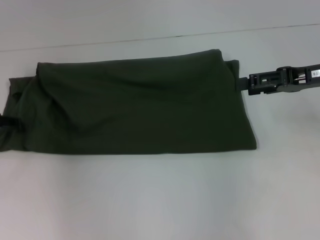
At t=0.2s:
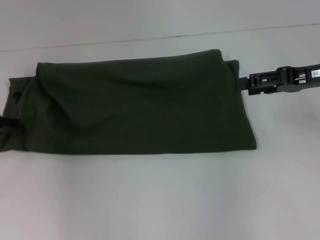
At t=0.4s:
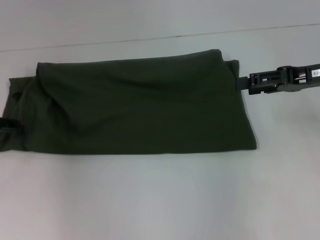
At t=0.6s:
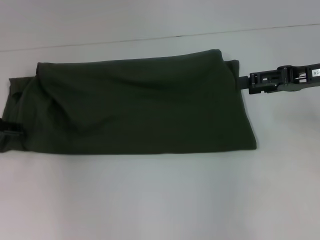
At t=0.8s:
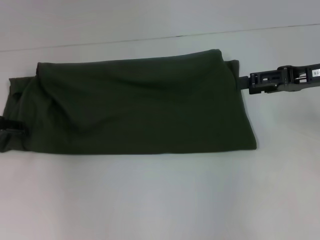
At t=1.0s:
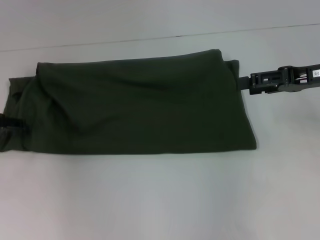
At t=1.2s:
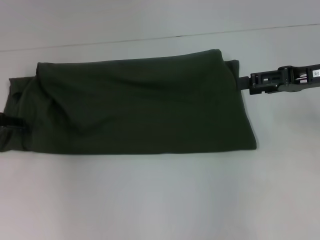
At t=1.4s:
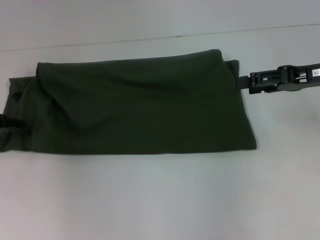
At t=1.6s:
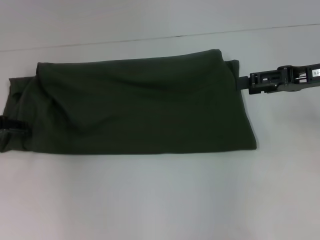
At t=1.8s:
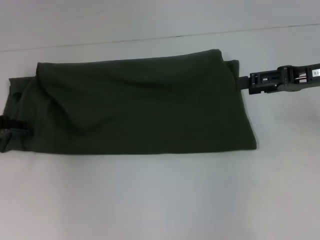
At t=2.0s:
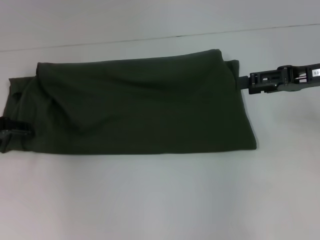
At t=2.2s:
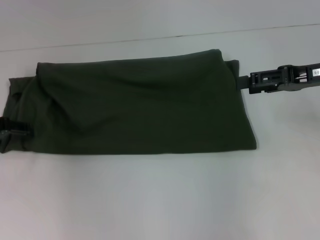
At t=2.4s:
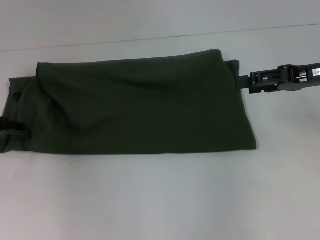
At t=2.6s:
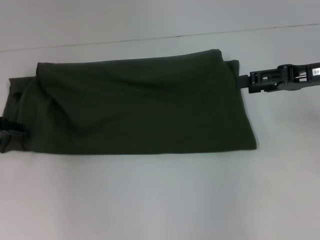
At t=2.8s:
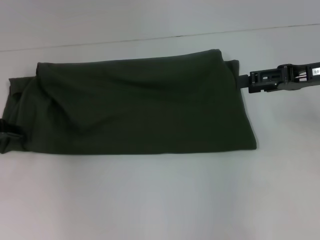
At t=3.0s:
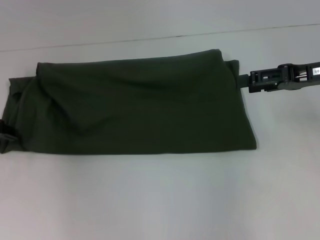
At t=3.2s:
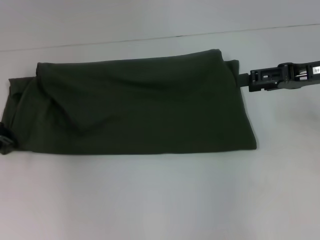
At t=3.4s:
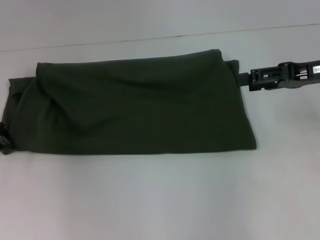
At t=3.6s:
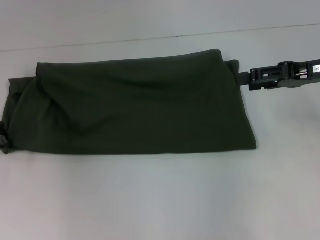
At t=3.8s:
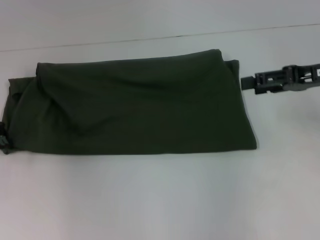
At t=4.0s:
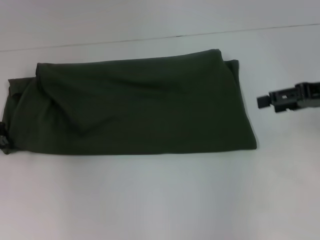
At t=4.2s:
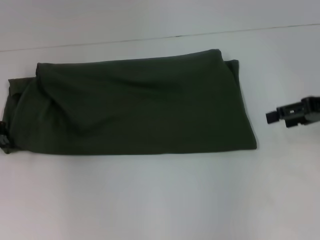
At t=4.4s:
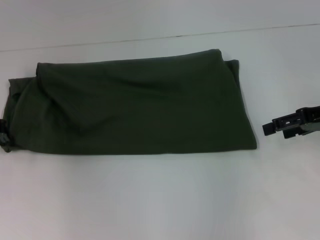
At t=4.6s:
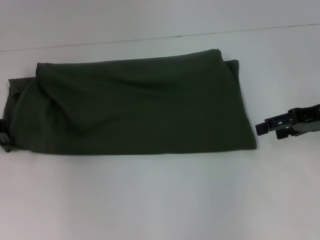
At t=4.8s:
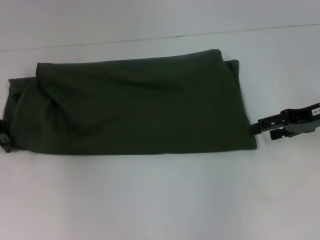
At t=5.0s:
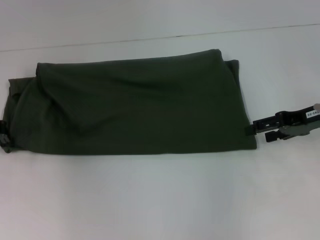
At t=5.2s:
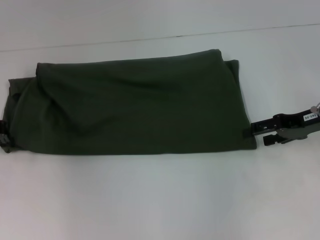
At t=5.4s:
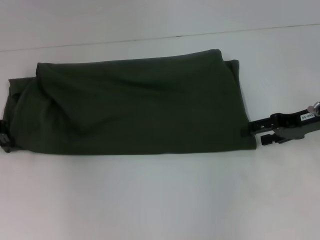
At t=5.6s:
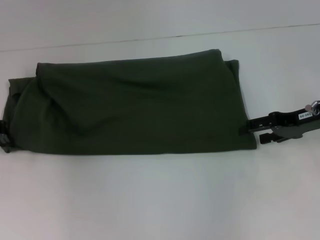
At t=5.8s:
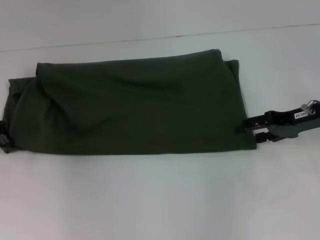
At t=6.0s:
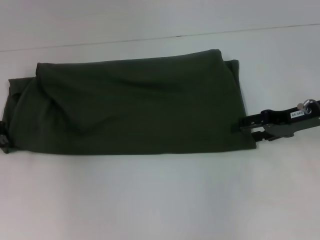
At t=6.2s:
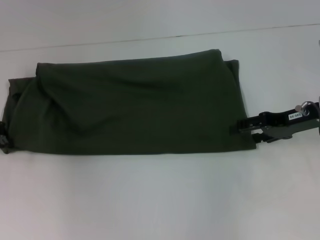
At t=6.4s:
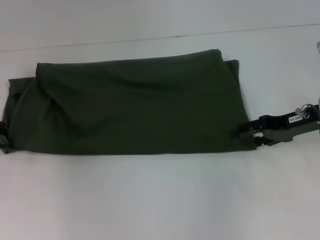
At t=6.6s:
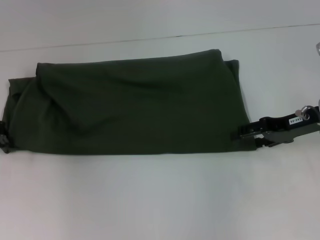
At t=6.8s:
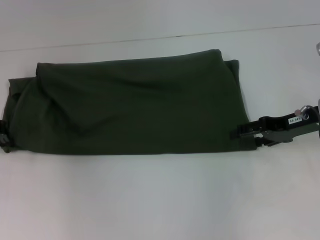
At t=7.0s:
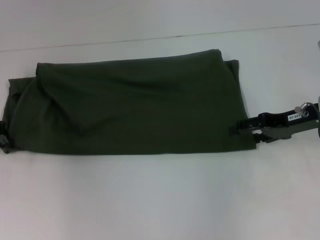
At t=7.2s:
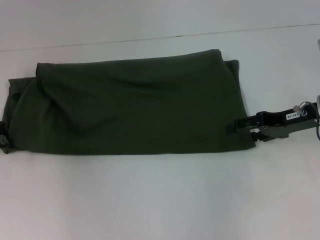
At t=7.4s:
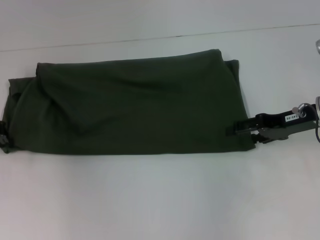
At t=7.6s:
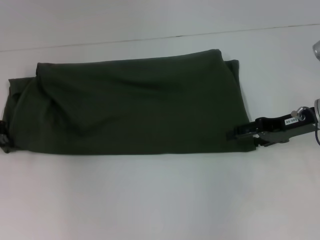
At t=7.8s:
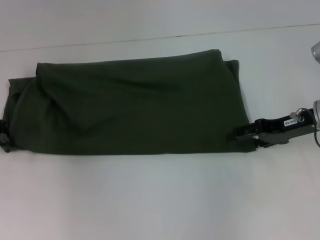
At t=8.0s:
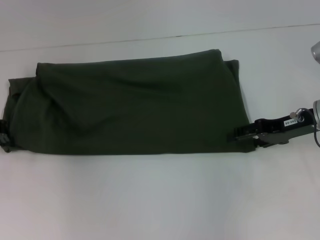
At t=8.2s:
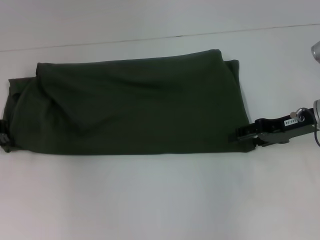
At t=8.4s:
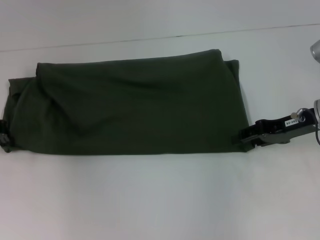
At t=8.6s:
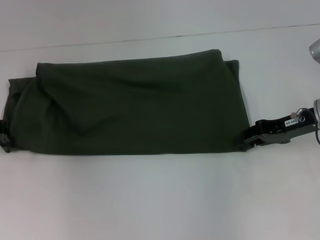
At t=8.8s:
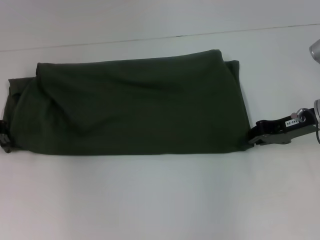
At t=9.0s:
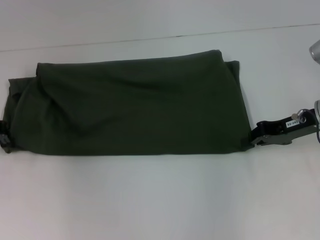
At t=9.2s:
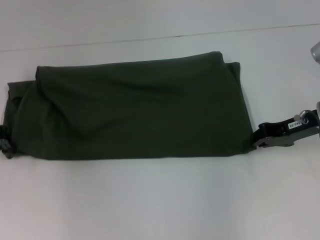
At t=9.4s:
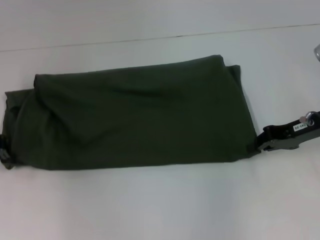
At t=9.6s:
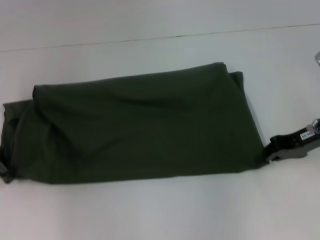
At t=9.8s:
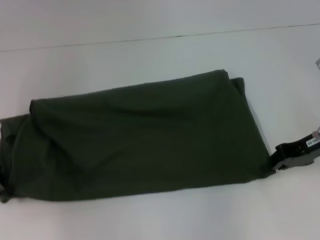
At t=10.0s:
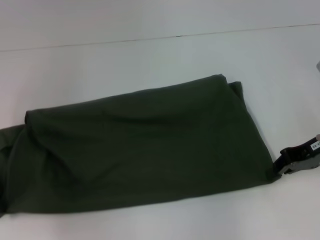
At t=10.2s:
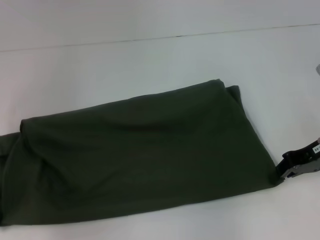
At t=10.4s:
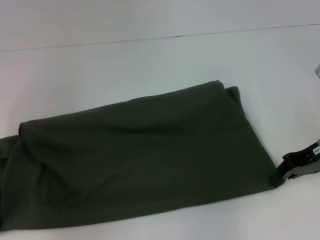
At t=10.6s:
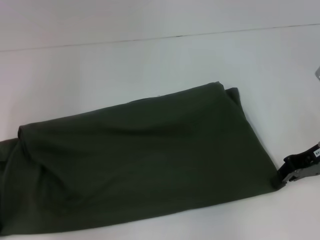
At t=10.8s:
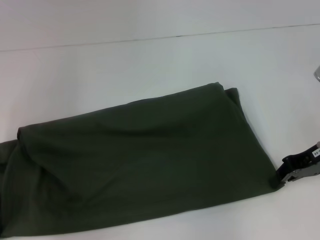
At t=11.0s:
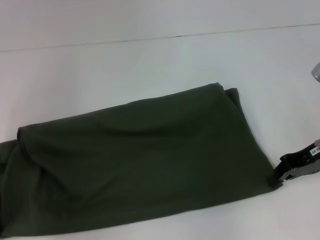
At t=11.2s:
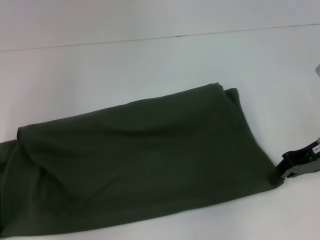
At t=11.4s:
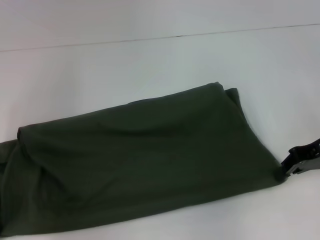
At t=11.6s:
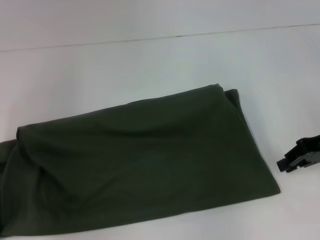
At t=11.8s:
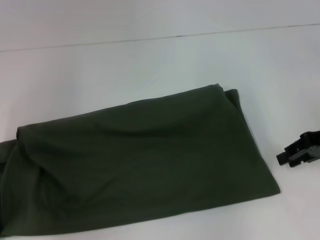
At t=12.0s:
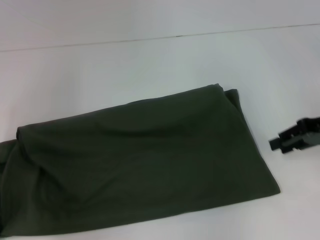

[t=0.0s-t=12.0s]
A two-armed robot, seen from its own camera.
t=0.0s to t=1.6s: Both grippers stay about where they are.
t=1.6s to t=3.0s: Both grippers stay about where they are.
t=4.4s to t=6.0s: The right gripper ends up roughly 5 cm from where it was.
t=6.0s to t=7.6s: Neither gripper changes place.
t=7.6s to t=9.0s: The right gripper closes up.
t=9.0s to t=10.4s: The left gripper shifts some 5 cm backward.
t=10.4s to t=12.0s: The right gripper opens its fingers.

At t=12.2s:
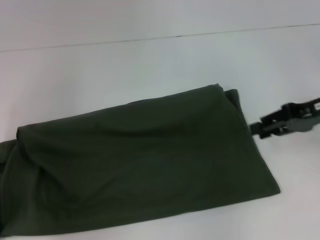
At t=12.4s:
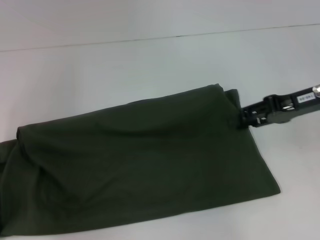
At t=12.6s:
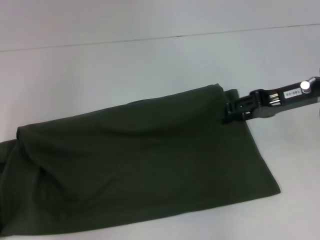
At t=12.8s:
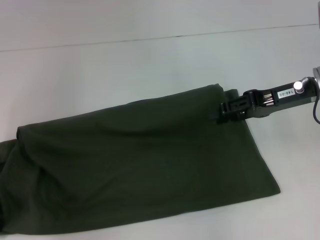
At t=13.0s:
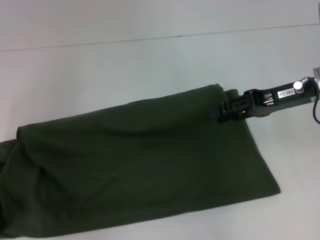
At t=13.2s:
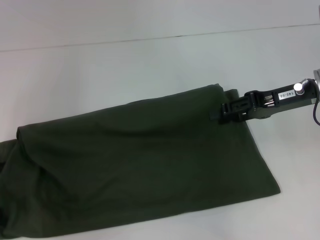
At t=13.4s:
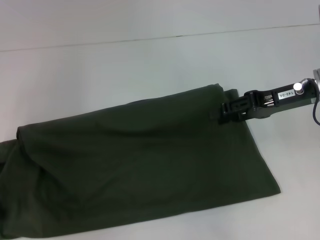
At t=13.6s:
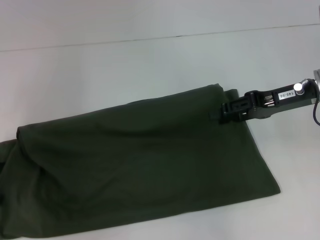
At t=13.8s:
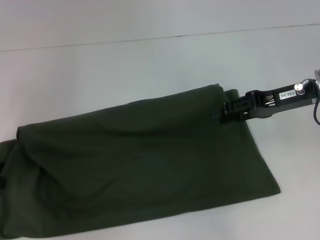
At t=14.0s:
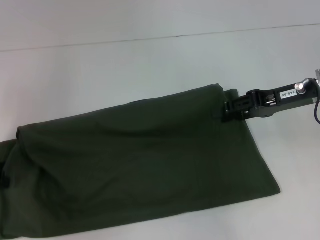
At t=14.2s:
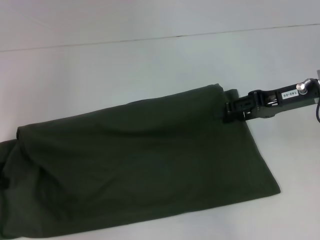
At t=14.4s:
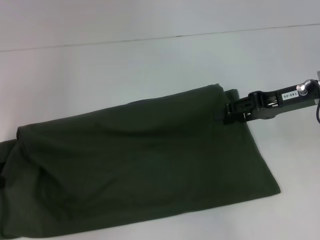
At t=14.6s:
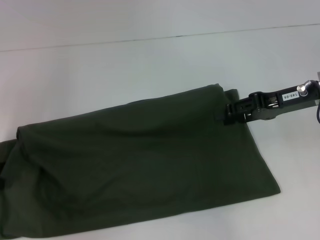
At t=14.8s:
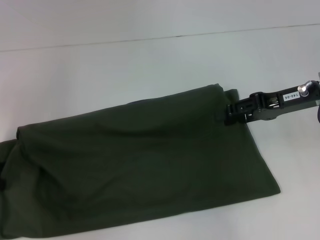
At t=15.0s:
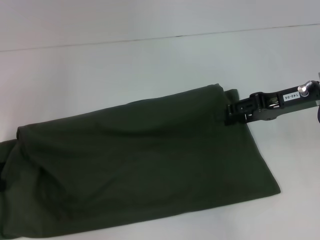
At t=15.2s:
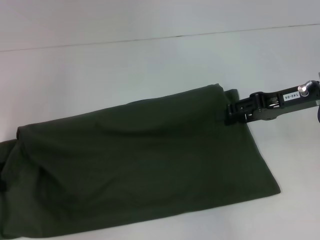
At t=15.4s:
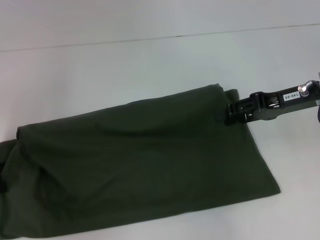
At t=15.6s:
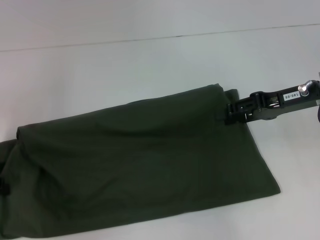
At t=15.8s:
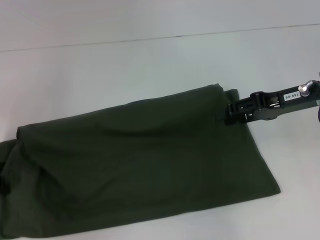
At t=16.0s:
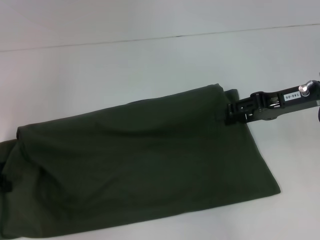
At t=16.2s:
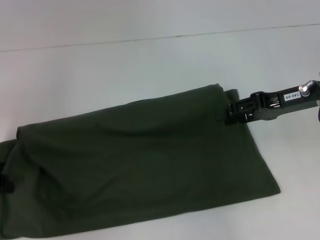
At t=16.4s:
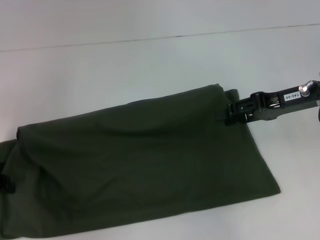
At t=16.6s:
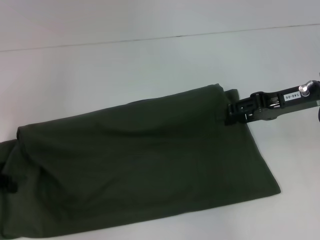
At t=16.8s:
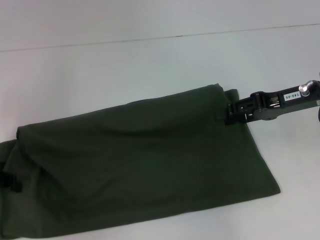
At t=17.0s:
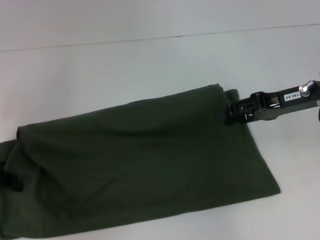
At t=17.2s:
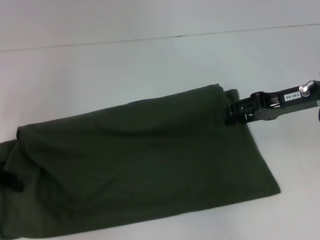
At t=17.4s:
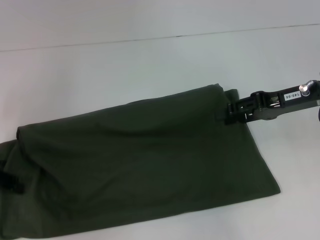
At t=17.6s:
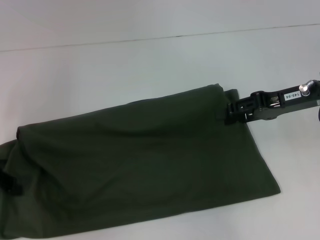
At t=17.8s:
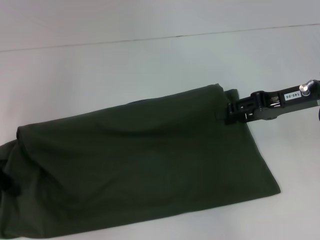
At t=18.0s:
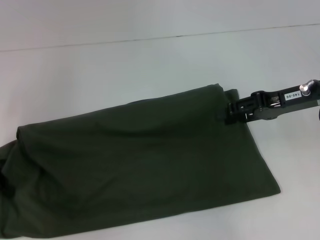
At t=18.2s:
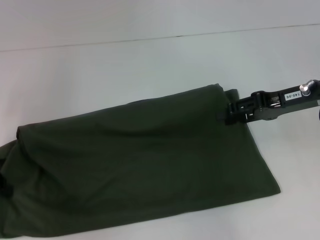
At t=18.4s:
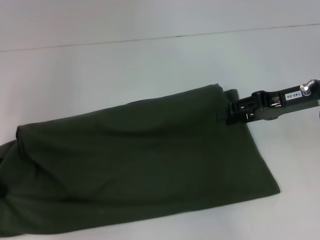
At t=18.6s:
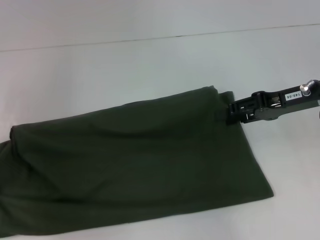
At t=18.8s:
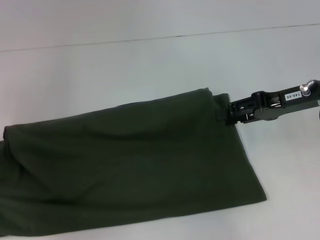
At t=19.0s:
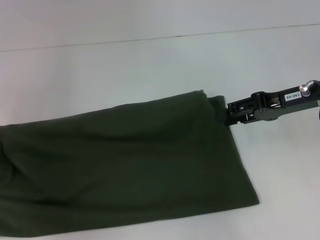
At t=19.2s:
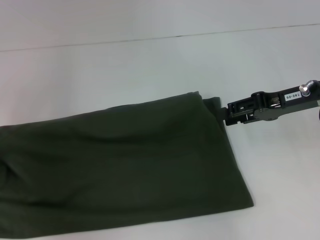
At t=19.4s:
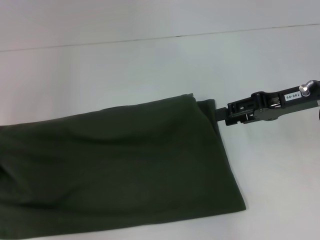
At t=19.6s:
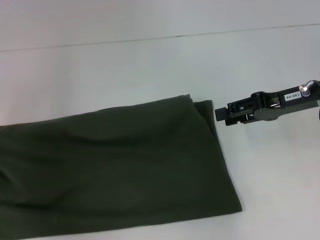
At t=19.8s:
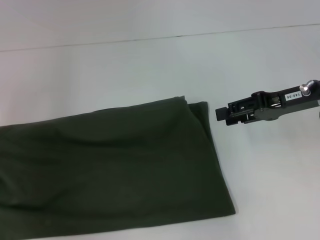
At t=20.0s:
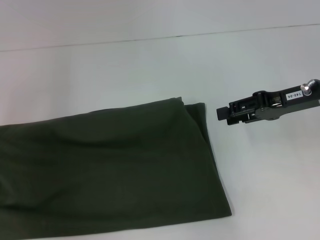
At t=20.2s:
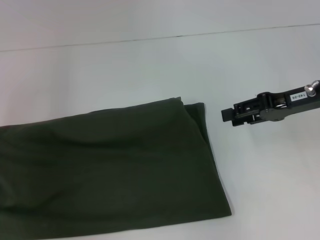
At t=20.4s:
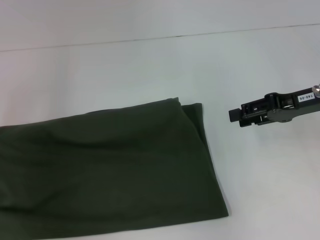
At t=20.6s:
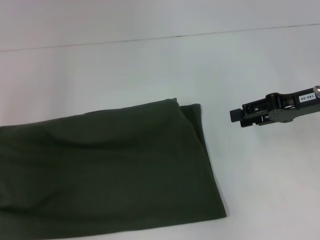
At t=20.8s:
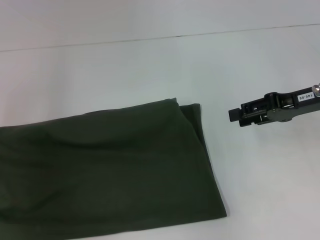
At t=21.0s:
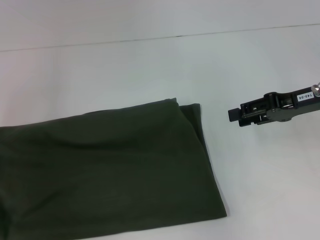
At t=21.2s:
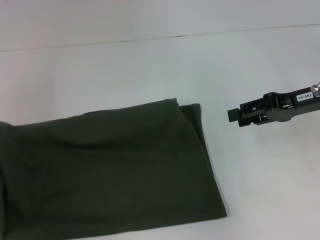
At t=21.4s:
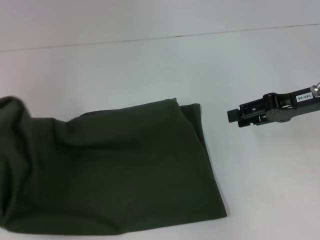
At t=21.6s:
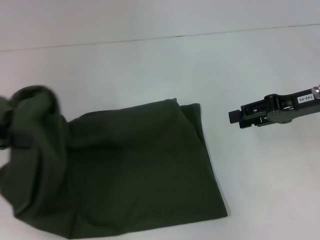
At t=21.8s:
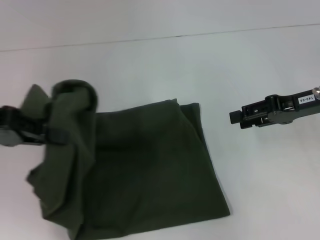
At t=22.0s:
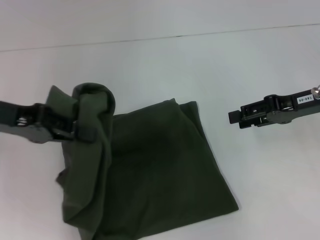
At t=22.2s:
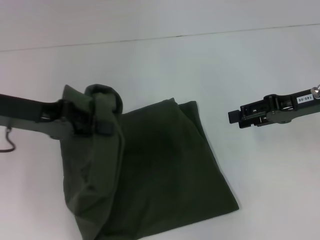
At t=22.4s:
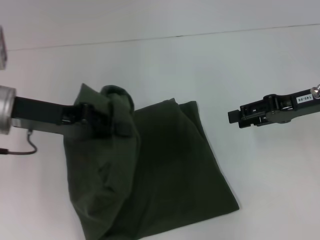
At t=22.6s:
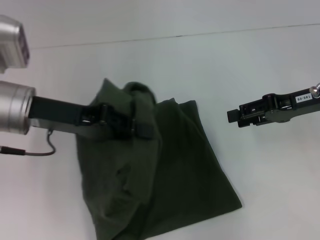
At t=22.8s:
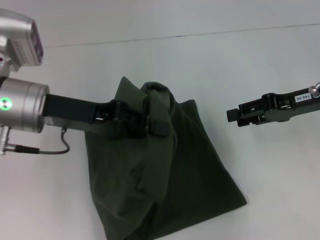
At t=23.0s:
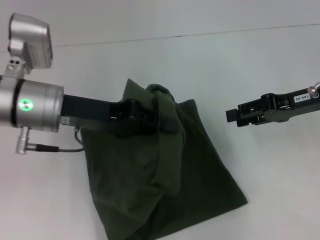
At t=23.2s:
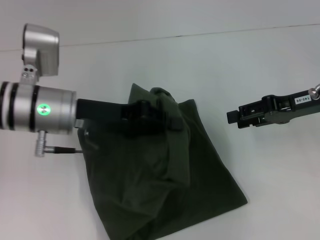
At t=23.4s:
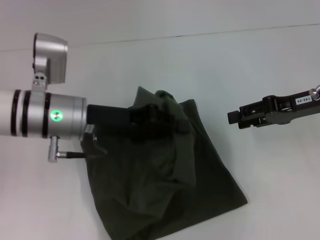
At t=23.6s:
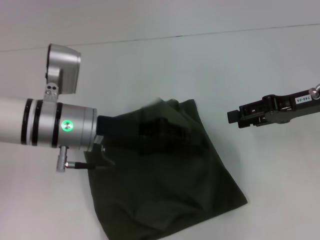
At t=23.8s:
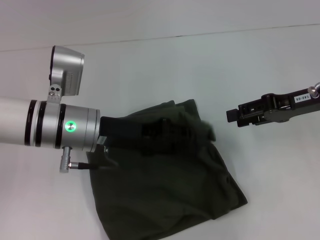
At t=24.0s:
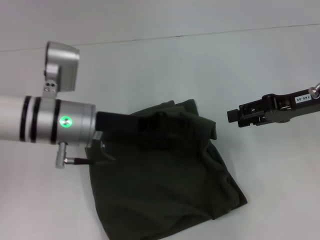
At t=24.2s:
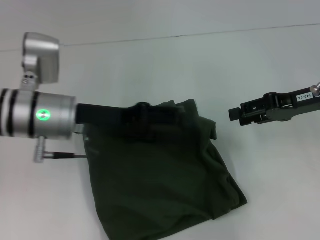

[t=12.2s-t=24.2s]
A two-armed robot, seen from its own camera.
Step, t=12.2s to t=24.2s: Fold the clothes with your left hand.
t=13.8s to t=15.2s: The grippers move only a little.
t=15.2s to t=16.6s: Both grippers stay put.
t=18.2s to t=19.8s: The left gripper moves approximately 5 cm.
t=21.2s to t=22.6s: The left gripper heads to the right, covering roughly 20 cm.
t=22.6s to t=24.2s: The left gripper opens up.
